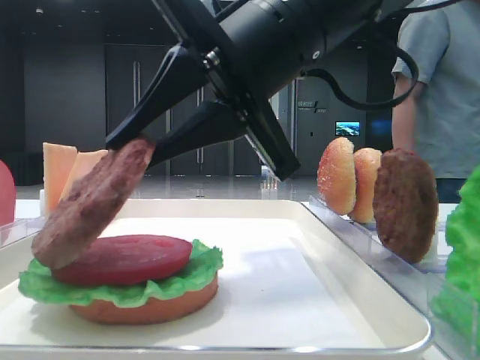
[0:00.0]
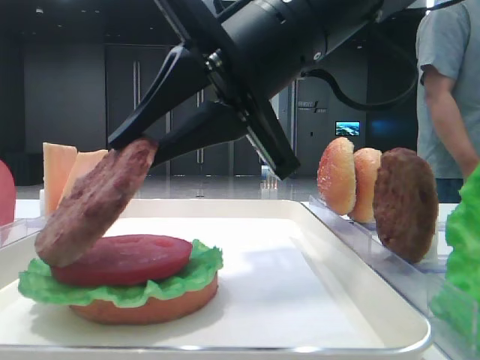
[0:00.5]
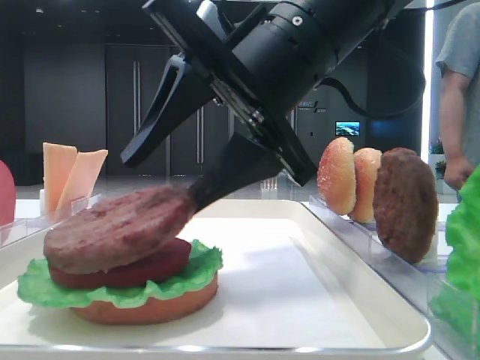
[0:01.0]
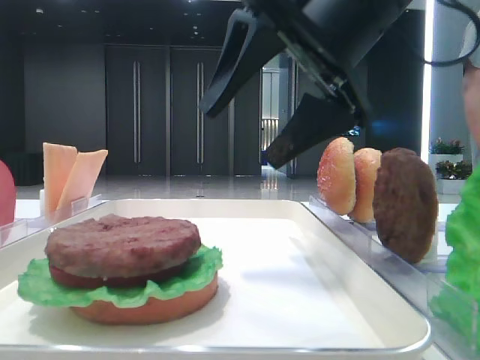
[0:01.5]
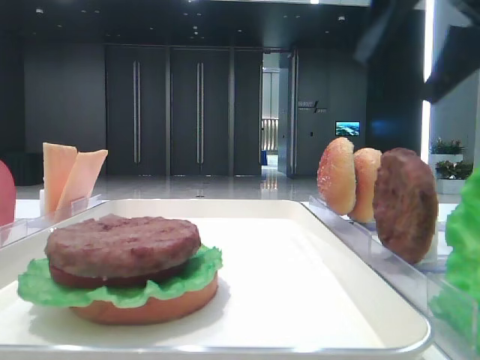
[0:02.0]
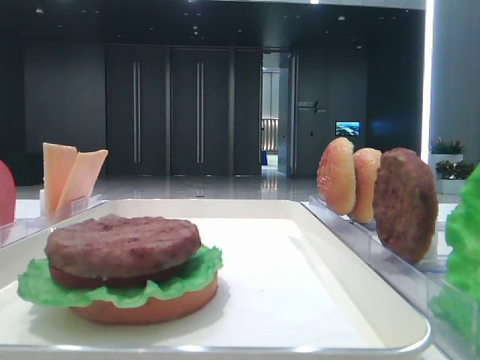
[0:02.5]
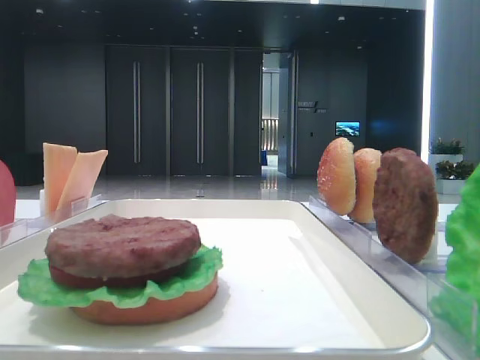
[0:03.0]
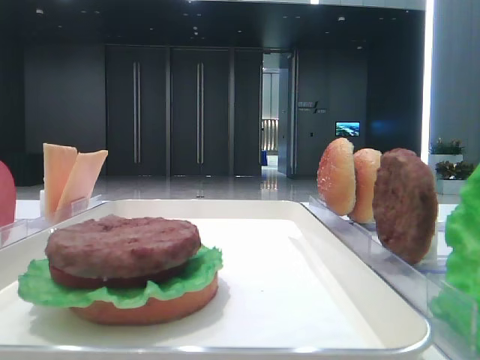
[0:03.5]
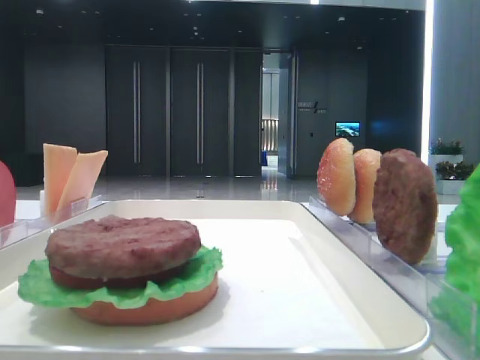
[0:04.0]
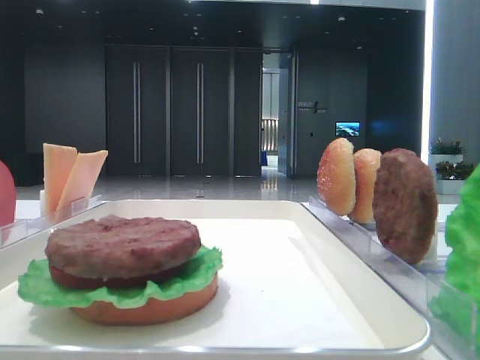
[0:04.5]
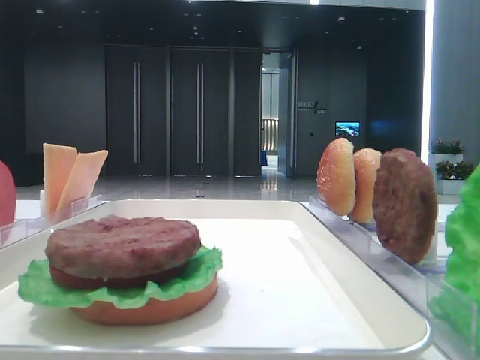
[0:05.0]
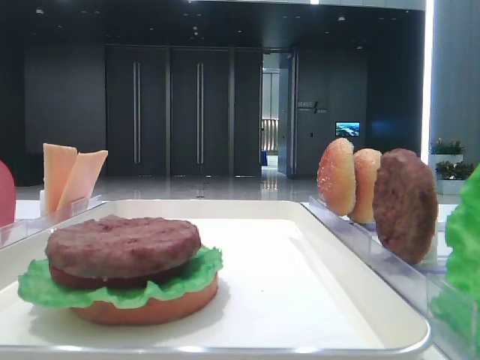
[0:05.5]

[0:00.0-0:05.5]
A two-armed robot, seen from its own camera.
0:00.0 to 0:02.0: The right gripper is displaced to the right and upward by roughly 20 cm, and opens up.
0:02.0 to 0:03.5: The right gripper goes approximately 25 cm backward.

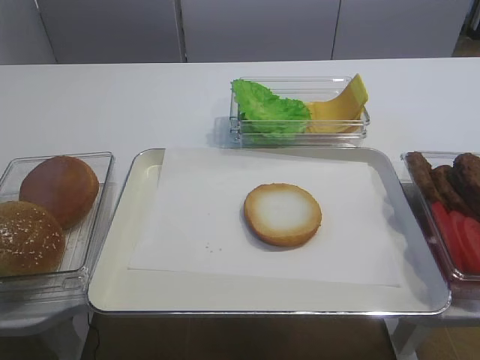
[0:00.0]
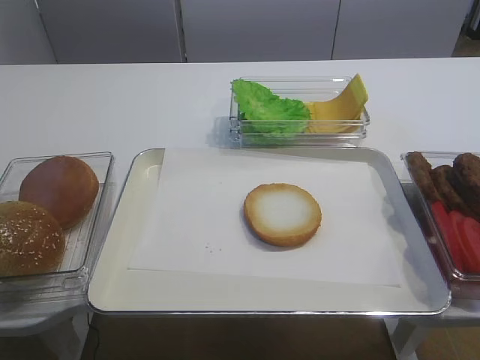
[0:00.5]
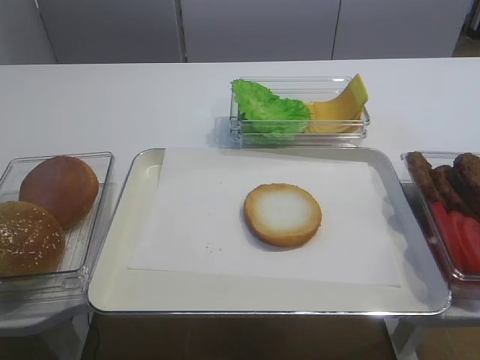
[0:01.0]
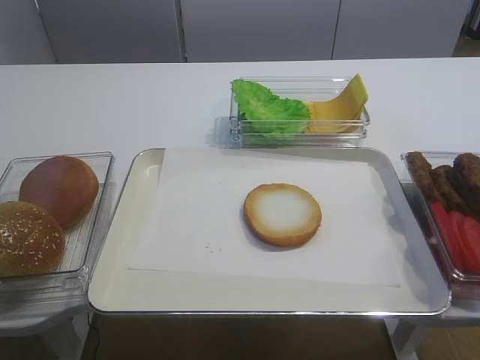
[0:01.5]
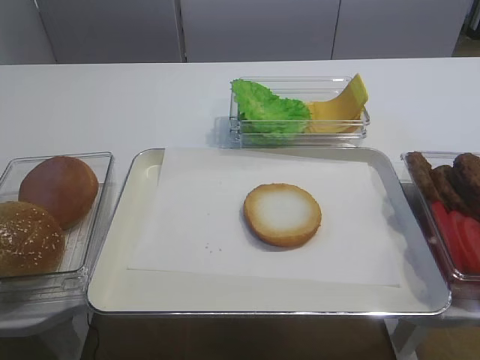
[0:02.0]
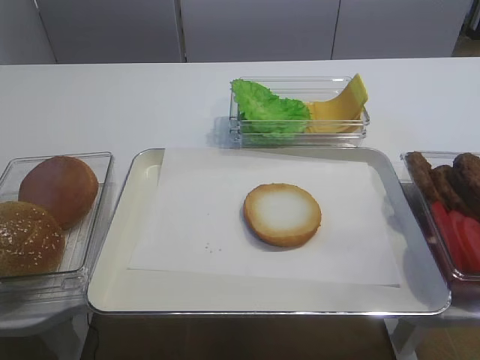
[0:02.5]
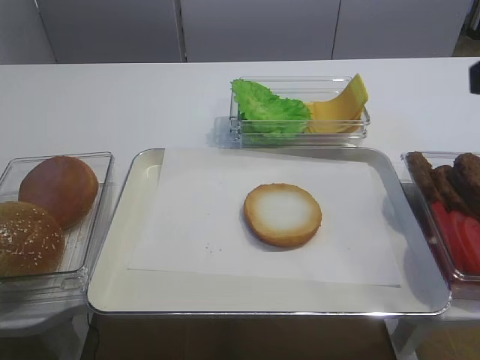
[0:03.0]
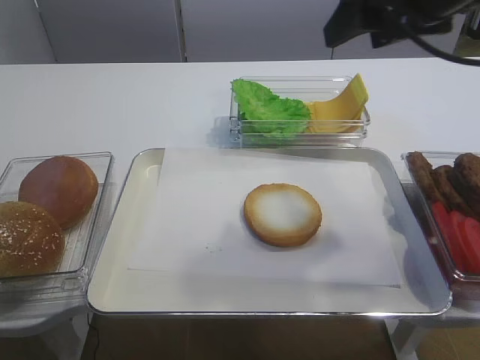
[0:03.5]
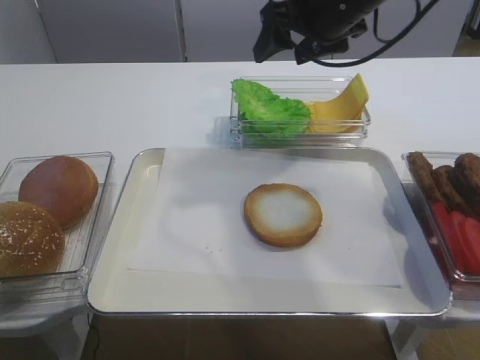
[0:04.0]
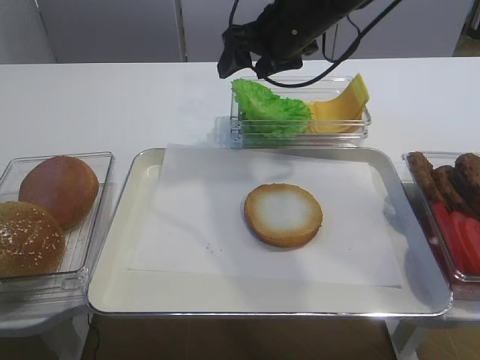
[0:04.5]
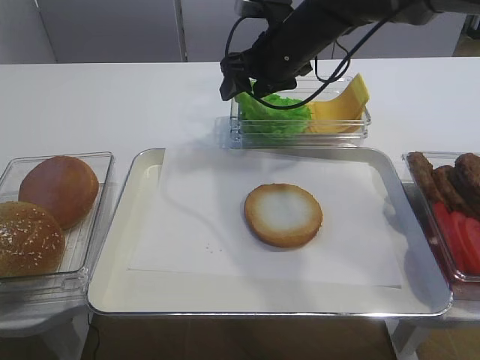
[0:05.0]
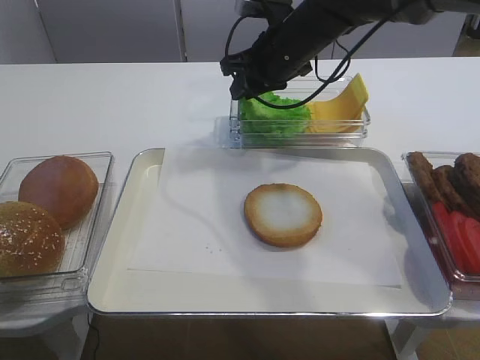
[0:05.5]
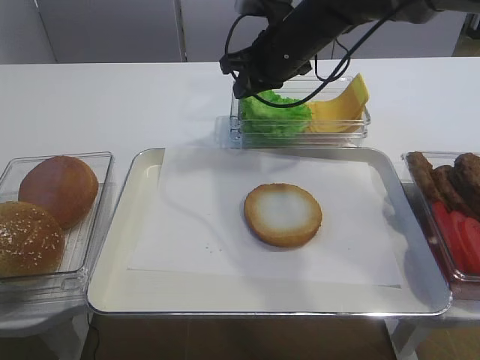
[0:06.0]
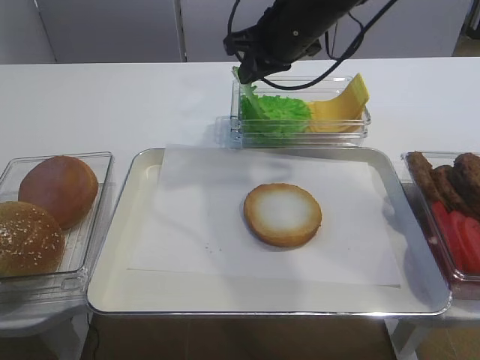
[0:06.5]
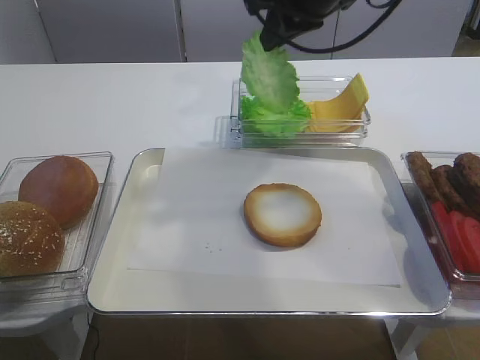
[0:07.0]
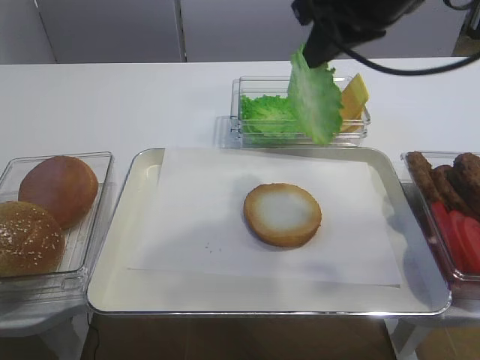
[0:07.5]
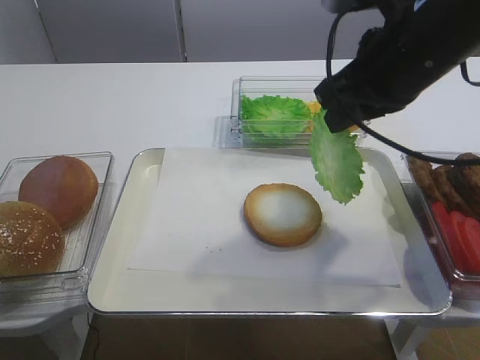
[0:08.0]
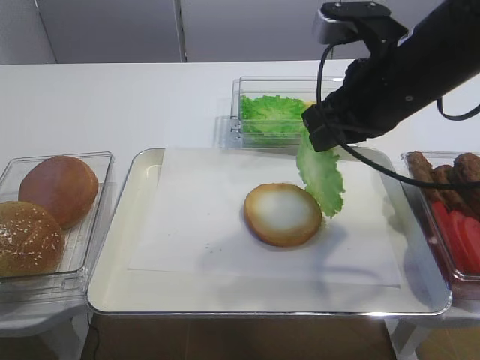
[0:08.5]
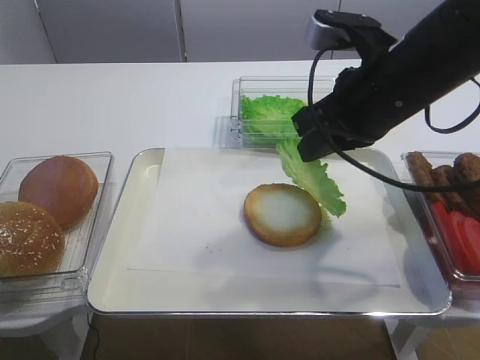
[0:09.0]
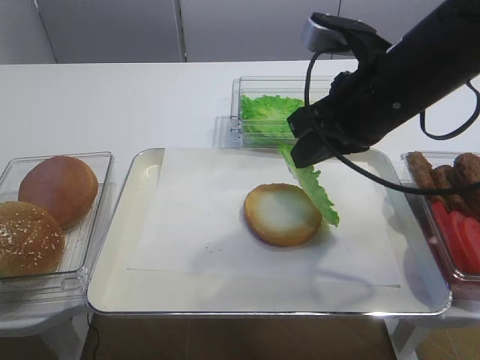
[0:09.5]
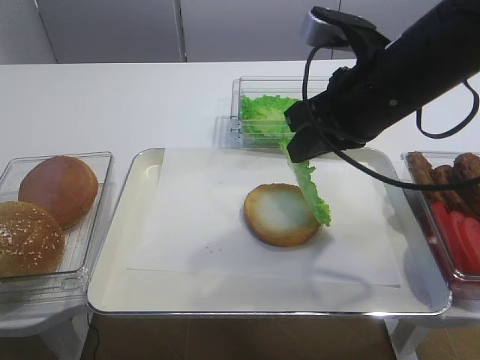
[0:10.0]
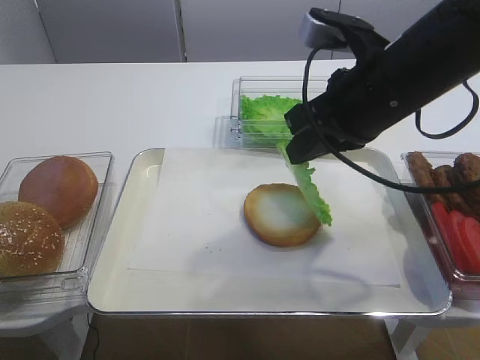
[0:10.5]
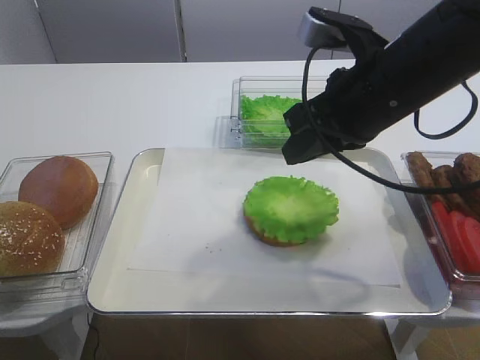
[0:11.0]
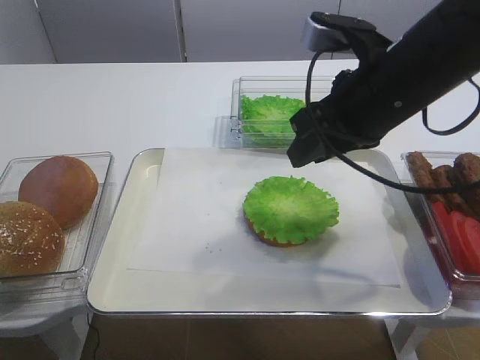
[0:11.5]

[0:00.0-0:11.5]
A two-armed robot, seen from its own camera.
Step, 0:00.0 to 0:06.5: Pick up the lettuce leaf with the right gripper.
Step, 0:07.0 to 0:11.0: Place the lettuce leaf on the bread slice with the right gripper.
0:02.0 to 0:04.0: The right gripper shifts about 40 cm forward.
0:04.0 to 0:06.0: The right gripper heads downward and to the left, covering about 10 cm, and closes its fingers.
0:06.0 to 0:07.5: The right gripper moves backward, upward and to the right, about 20 cm.
0:07.5 to 0:09.5: The right gripper is displaced downward by approximately 10 cm.
0:09.5 to 0:11.5: The right gripper opens.

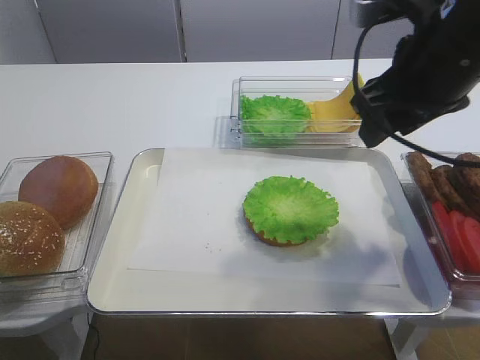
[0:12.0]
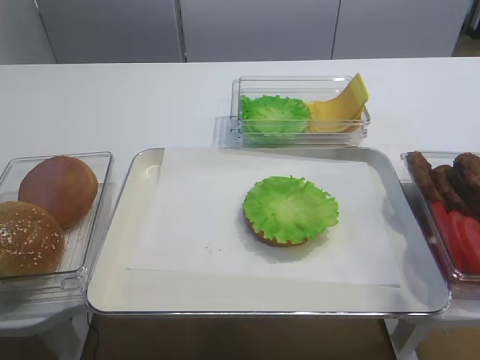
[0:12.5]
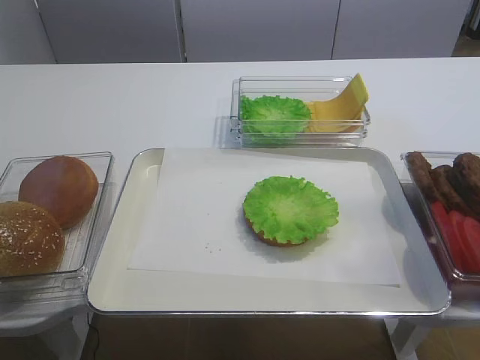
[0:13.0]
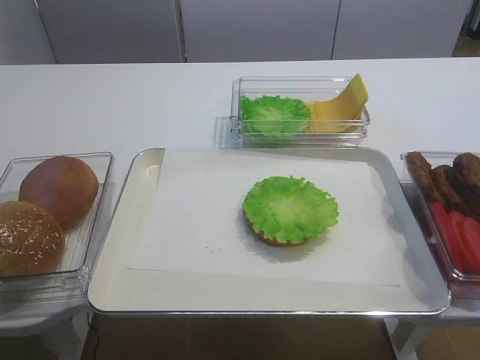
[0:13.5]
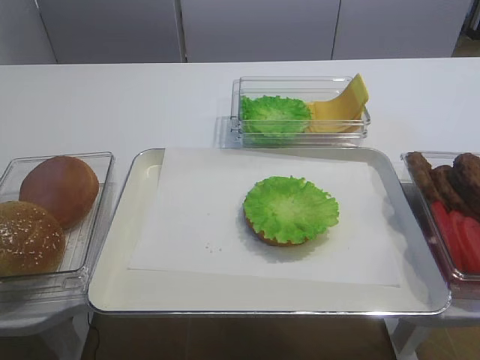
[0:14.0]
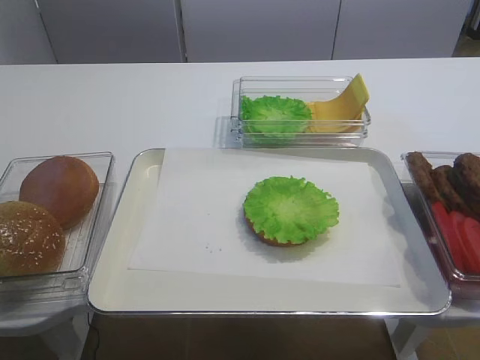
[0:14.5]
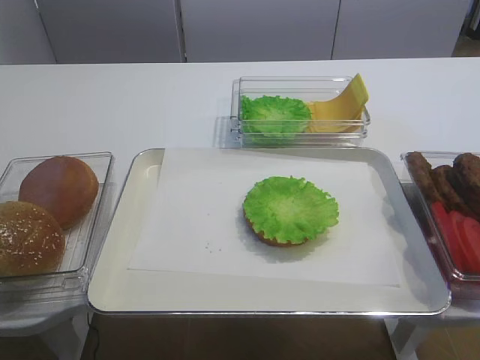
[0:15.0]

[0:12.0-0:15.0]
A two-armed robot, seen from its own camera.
0:12.0 to 0:13.5: The right gripper shifts roughly 30 cm backward.
